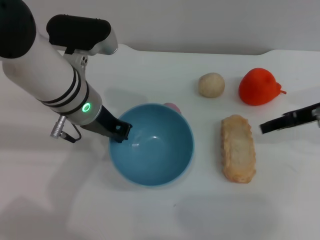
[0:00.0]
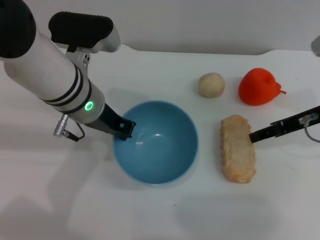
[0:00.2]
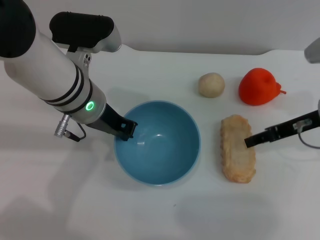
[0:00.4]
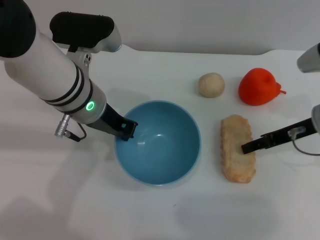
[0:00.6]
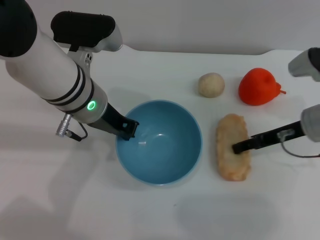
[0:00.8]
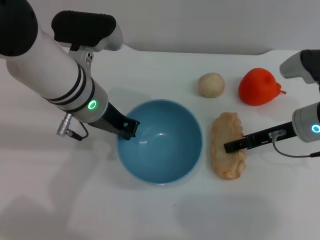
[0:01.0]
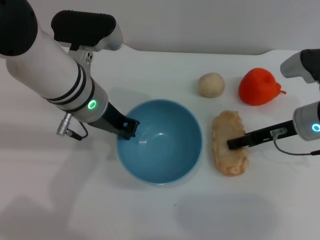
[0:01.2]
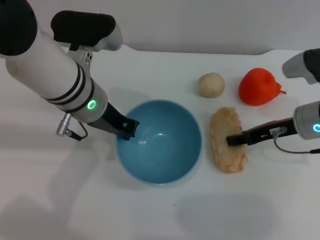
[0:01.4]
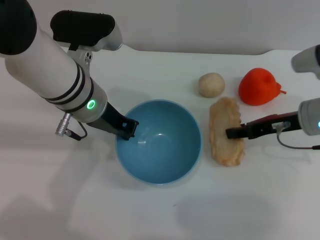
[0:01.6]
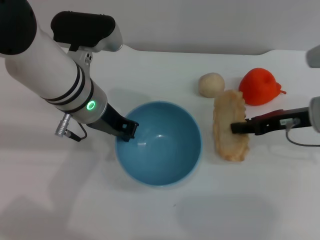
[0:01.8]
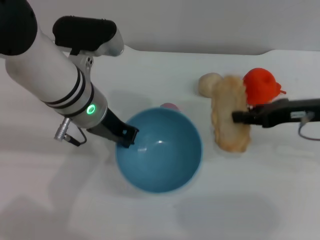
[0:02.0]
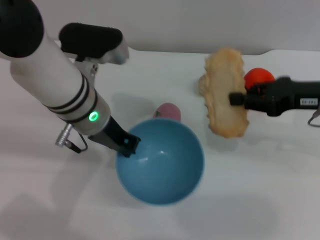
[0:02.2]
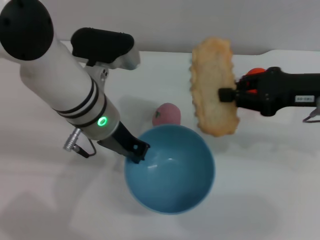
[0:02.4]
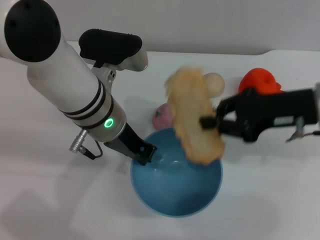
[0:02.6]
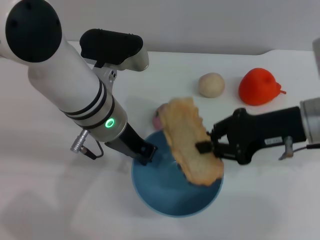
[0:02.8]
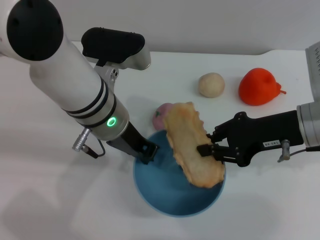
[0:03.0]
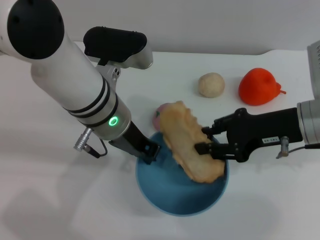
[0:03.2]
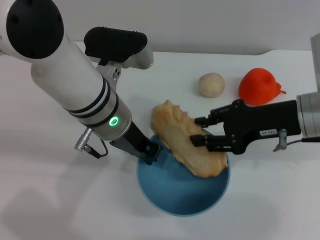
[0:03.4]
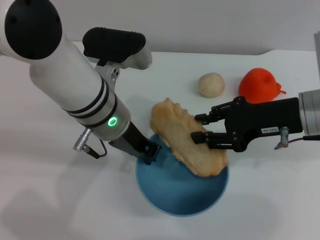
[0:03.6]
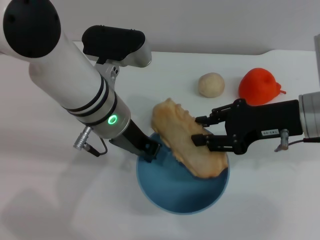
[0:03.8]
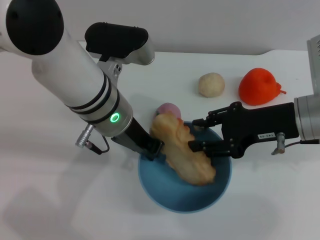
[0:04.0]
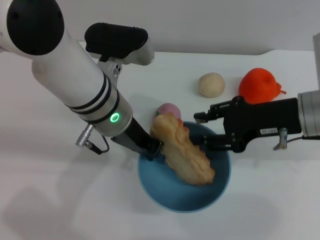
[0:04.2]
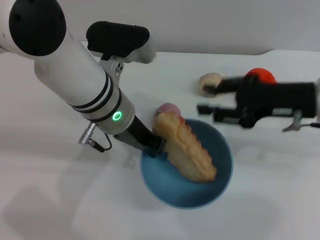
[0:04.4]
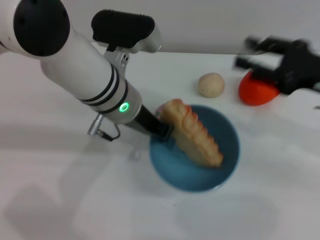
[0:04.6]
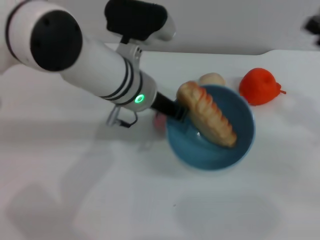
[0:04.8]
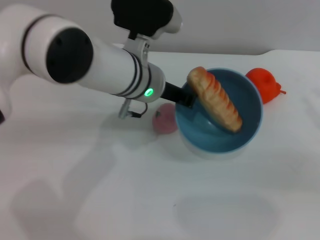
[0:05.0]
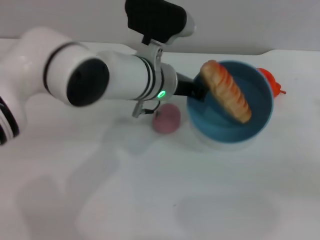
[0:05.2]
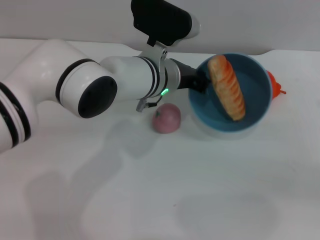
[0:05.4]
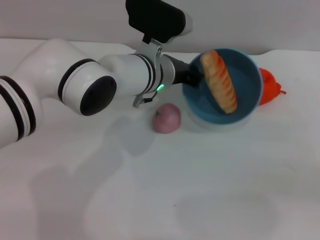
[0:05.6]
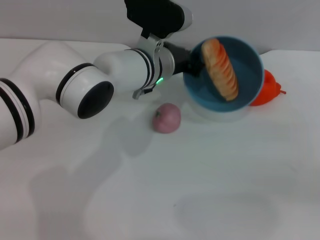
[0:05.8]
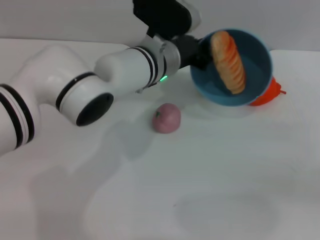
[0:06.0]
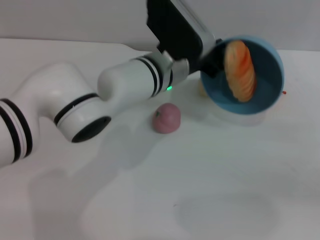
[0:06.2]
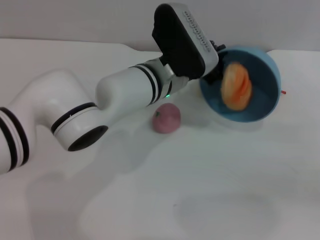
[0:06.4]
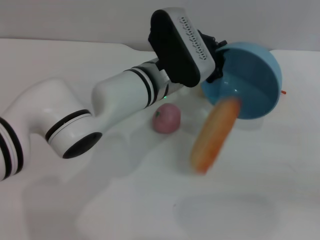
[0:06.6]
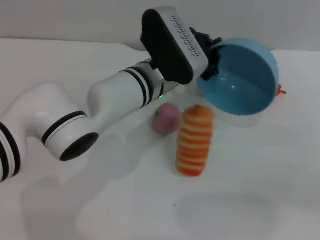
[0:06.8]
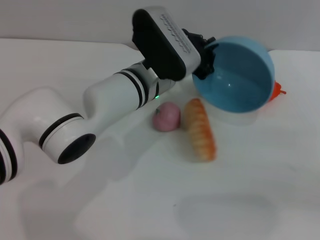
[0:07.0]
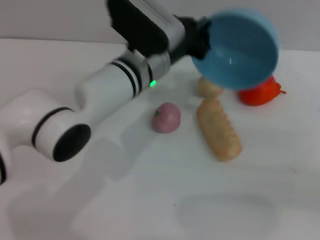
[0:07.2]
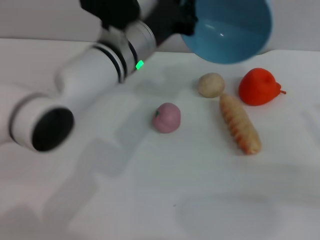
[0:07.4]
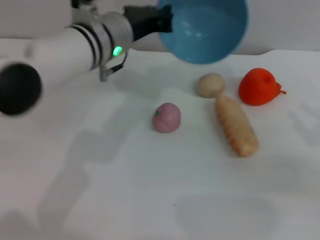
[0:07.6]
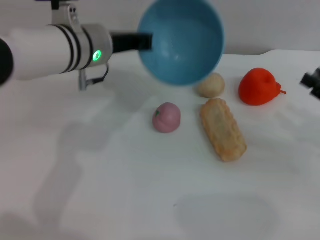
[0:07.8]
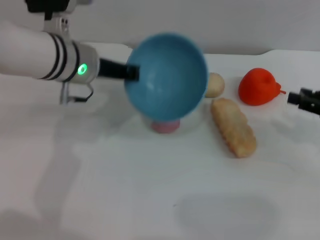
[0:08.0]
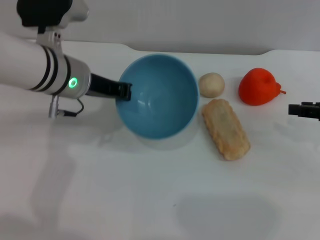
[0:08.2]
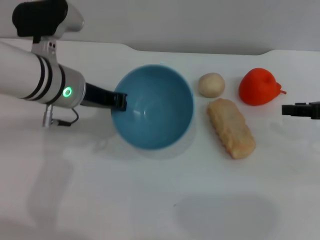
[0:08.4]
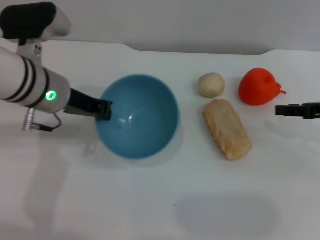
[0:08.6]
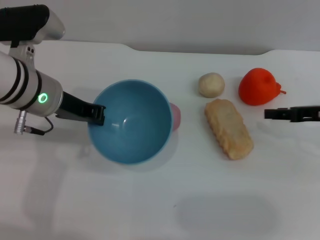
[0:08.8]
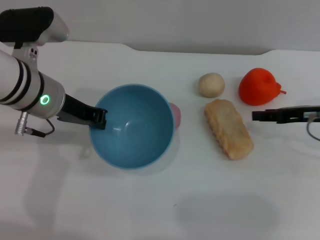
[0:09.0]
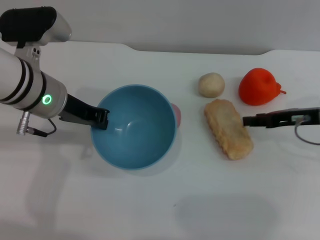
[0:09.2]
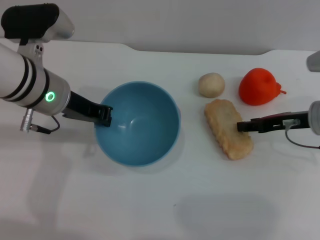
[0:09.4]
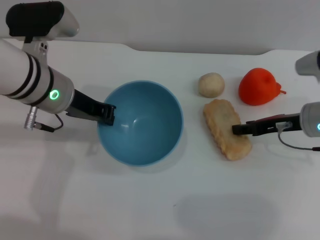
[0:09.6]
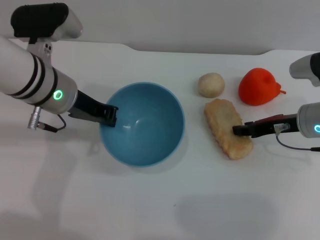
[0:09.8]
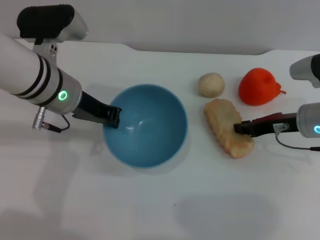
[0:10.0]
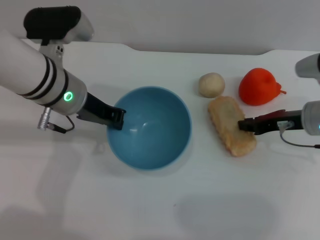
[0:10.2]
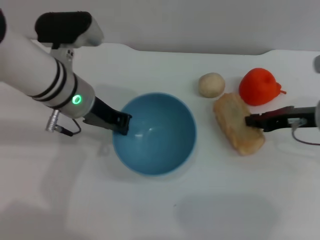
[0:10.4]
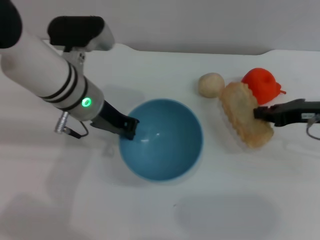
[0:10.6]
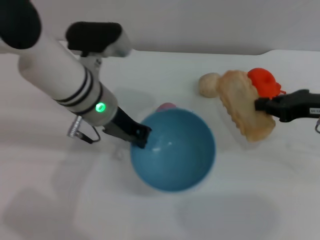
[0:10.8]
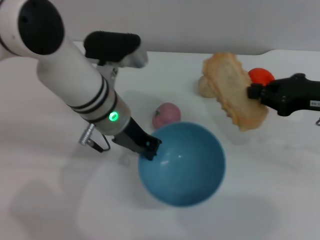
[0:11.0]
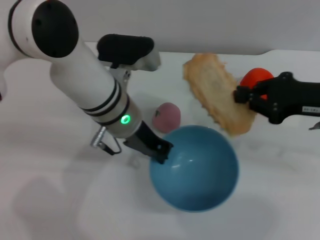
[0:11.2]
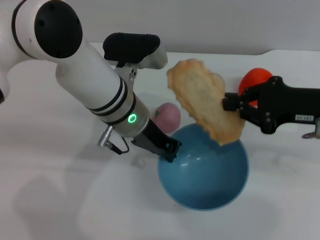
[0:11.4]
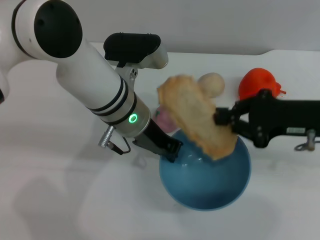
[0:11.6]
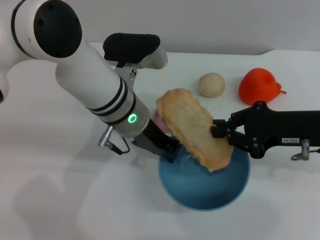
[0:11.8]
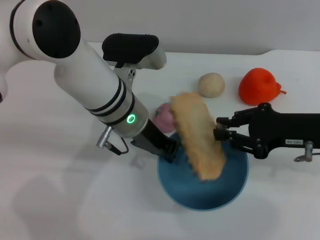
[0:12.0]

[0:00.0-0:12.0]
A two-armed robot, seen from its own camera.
Task of the whole recording: put the bread into the blue bowl and pour it out repeatedly.
Step, 0.0 to 2.0 s: Pick up the bread with the right gripper.
Step, 2.2 to 4.4 s: Place the bread into the bowl.
Step, 4.6 to 7.2 s: Pour the bread out of the bowl.
Step, 7.4 to 10.8 s: Pick up the bread with the right gripper.
0.0 to 1.6 s: The right gripper changes place by roughly 5 cm.
1.6 to 3.0 s: The right gripper moves roughly 5 cm, and closes its fingers.
3.0 to 4.4 s: The right gripper opens its fingers.
4.4 to 6.0 s: The left gripper travels forward and to the right by about 10 cm; the right gripper heads to the right and backward, covering roughly 20 cm.
6.0 to 7.6 s: The left gripper heads to the left, covering approximately 5 cm.
7.6 to 9.0 s: The right gripper travels forward and to the left by about 10 cm. Meanwhile the left gripper is displaced to the left by some 10 cm.
9.0 to 10.4 s: The right gripper closes its fingers.
10.4 to 12.0 s: The left gripper shifts roughly 5 cm to the right; the right gripper shifts roughly 5 cm backward.

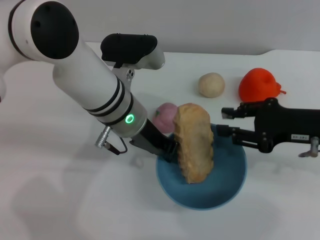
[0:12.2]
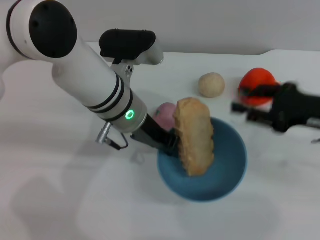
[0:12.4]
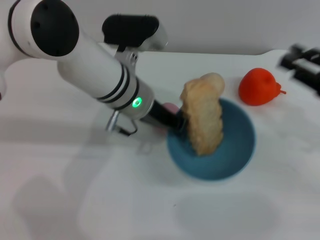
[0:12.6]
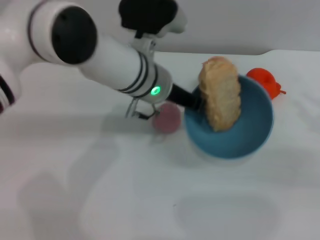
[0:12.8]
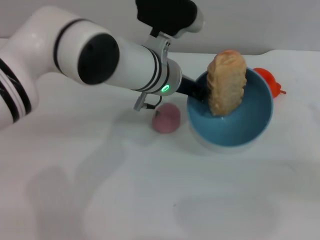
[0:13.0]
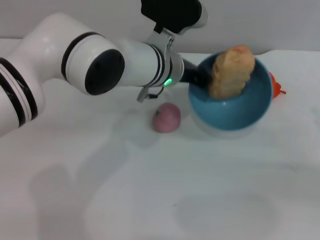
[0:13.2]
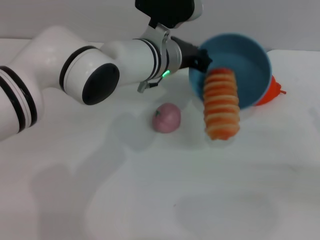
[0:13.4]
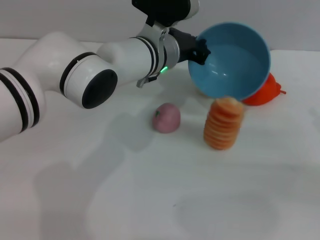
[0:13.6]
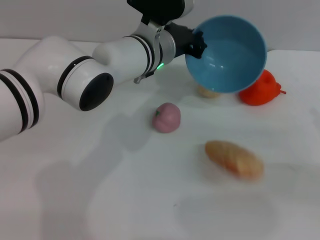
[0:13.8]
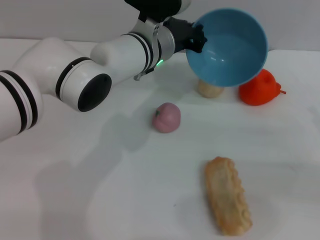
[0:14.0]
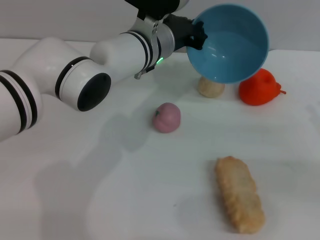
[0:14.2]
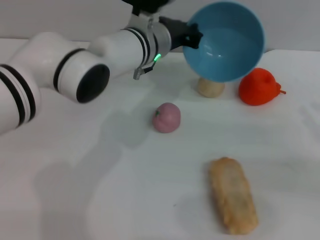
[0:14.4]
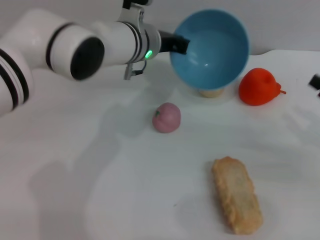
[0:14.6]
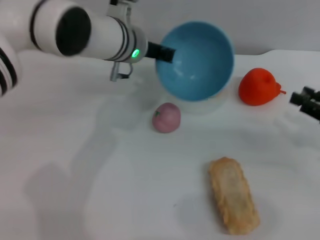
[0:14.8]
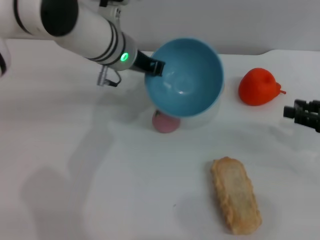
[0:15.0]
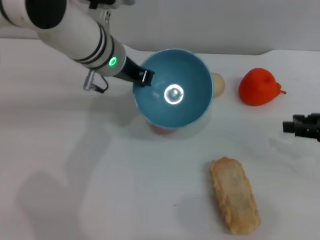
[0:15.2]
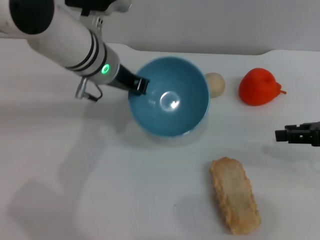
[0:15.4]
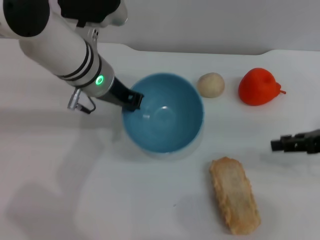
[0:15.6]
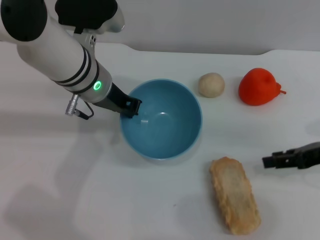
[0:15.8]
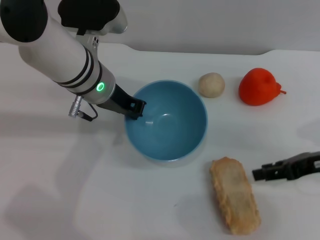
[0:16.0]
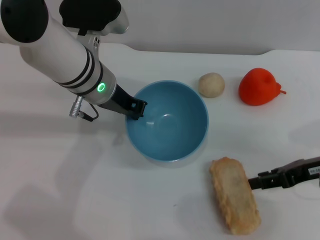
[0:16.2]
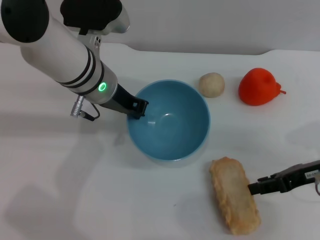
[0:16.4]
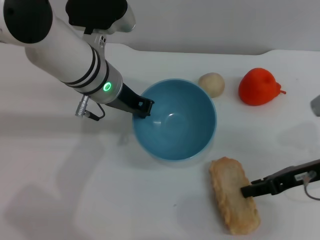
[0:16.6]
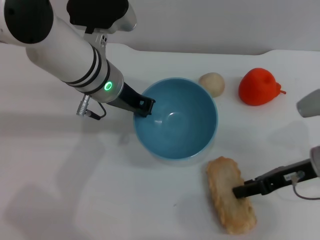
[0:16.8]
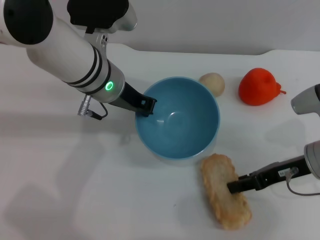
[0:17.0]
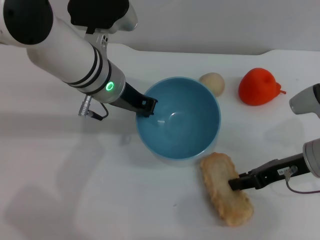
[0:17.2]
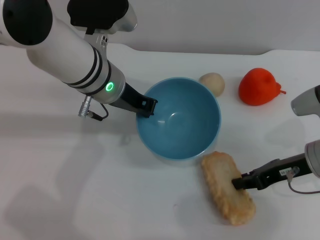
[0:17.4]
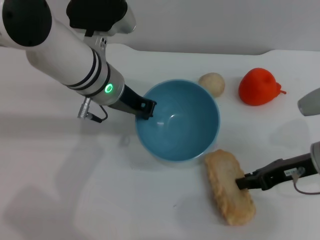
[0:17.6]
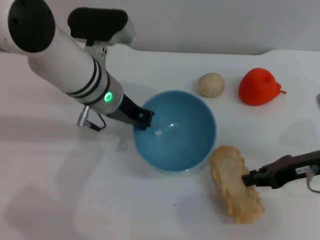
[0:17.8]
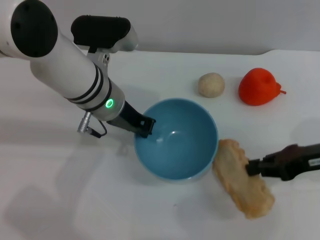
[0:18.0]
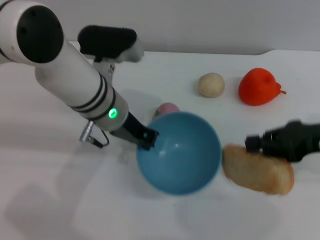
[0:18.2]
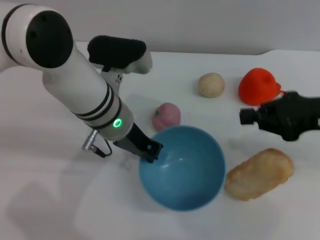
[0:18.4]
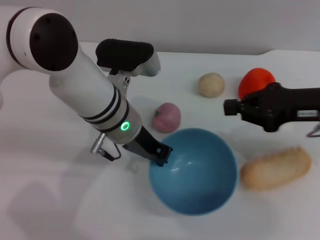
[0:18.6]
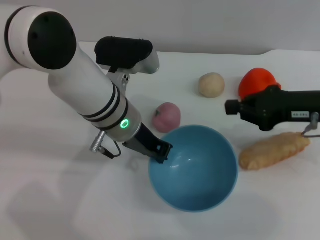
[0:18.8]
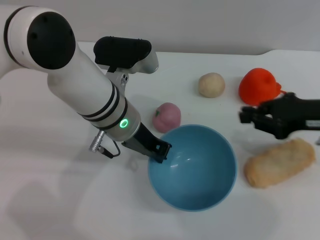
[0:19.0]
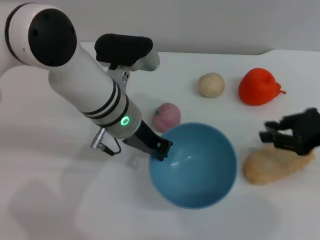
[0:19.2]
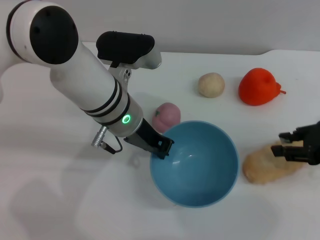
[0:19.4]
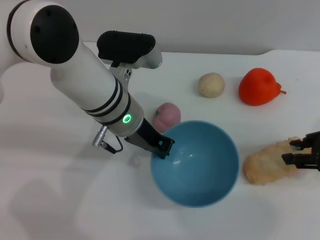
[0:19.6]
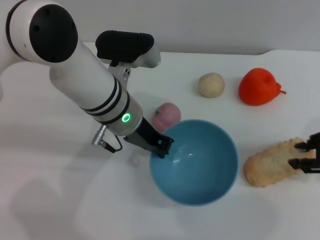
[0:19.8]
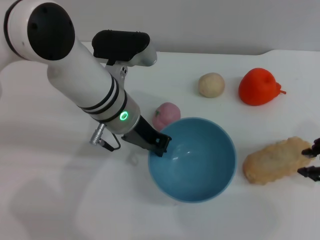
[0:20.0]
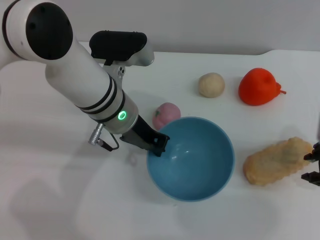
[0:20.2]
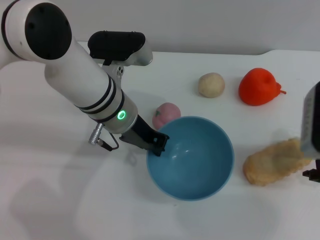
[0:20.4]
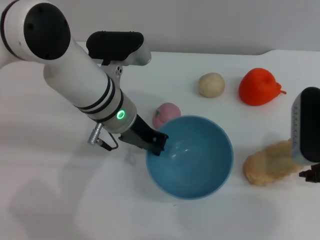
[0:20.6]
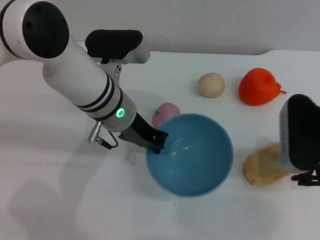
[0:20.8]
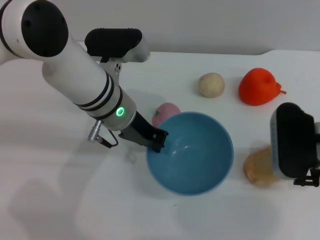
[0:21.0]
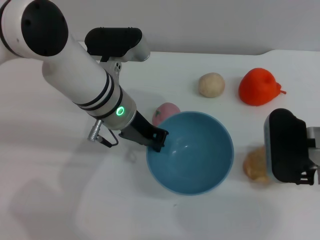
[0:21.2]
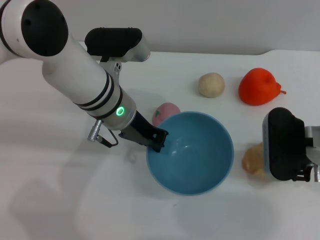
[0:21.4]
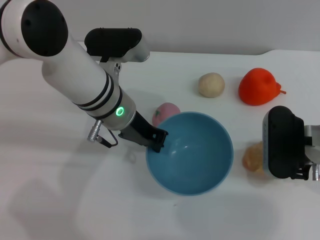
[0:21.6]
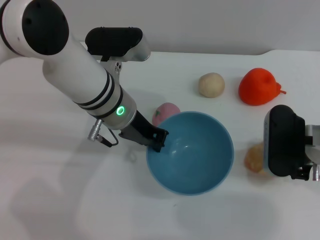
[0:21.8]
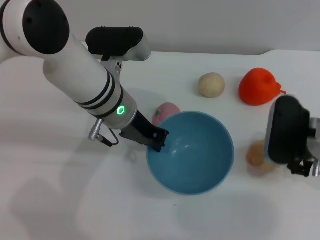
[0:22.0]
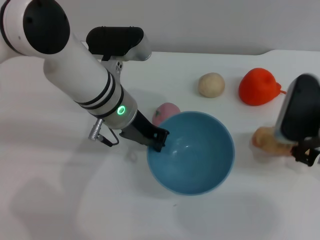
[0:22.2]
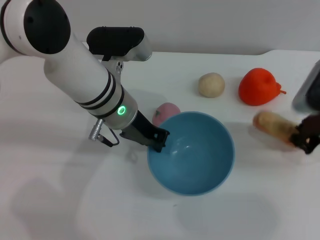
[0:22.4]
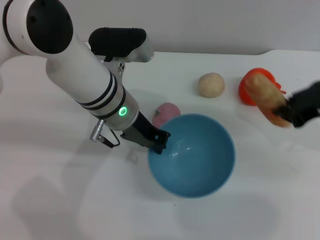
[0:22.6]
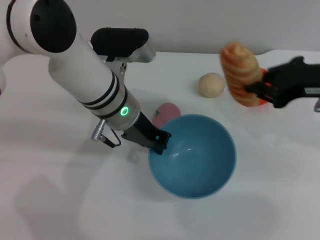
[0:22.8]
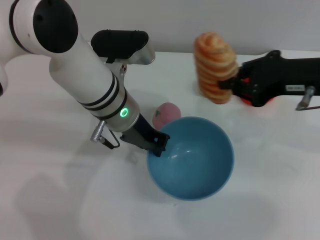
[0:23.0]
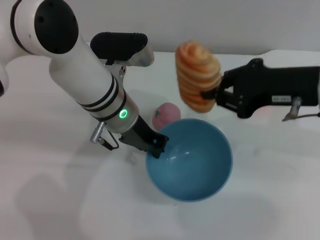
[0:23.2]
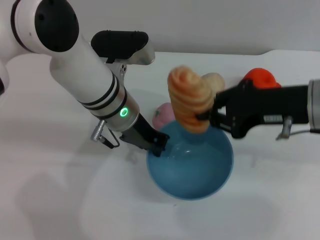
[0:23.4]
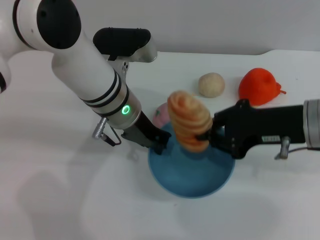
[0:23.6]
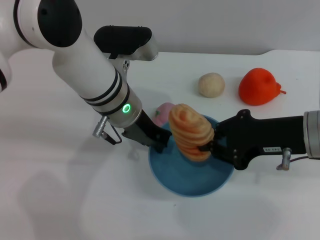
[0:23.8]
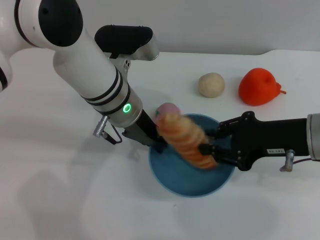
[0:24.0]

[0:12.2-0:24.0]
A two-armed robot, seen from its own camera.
Task of the whole recording: put the bread into the blue bowl and pour it out repeatedly.
Step, 12.6 to 13.8 s: Pour the bread out of the bowl.
Step, 14.2 to 22.4 s: Pick up the bread with the right gripper.
12.2 to 13.6 s: The right gripper is displaced to the right and backward by approximately 15 cm, and opens its fingers; the left gripper moves forward, some 5 cm.
13.6 to 15.2 s: The right gripper shifts some 5 cm forward, while the left gripper heads to the left, covering about 5 cm.
15.2 to 16.6 s: The right gripper goes about 5 cm to the left.
16.6 to 18.2 s: The right gripper shifts some 5 cm upward, and closes its fingers.
18.2 to 19.6 s: The right gripper opens up.
19.6 to 21.0 s: The right gripper is displaced to the left by approximately 10 cm.
21.0 to 22.6 s: The right gripper moves upward, some 5 cm, and closes up.
22.6 to 24.0 s: The right gripper ends up about 5 cm from where it was.
